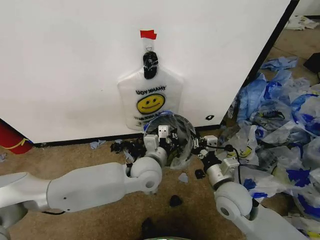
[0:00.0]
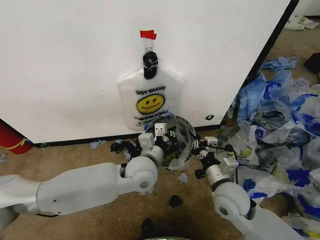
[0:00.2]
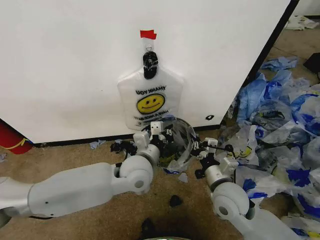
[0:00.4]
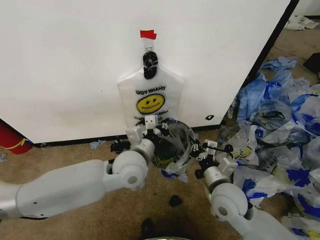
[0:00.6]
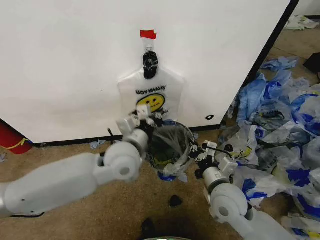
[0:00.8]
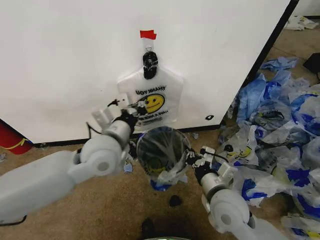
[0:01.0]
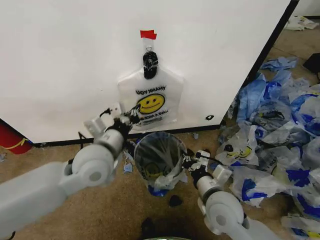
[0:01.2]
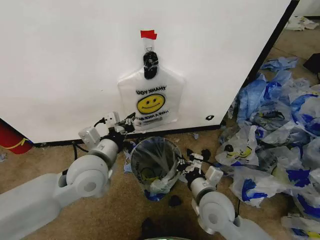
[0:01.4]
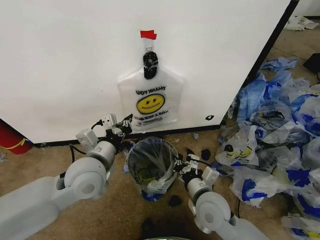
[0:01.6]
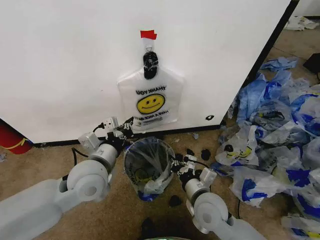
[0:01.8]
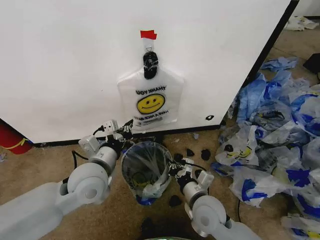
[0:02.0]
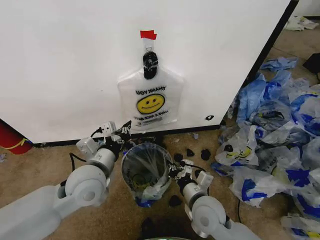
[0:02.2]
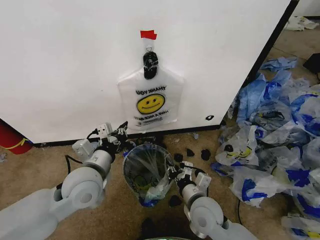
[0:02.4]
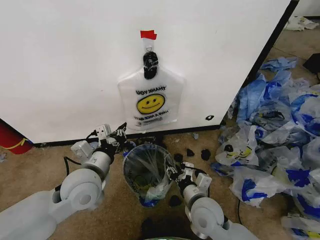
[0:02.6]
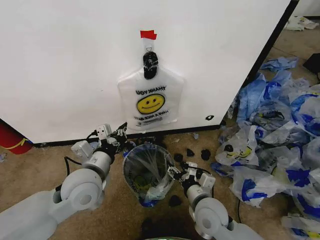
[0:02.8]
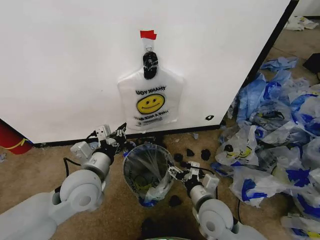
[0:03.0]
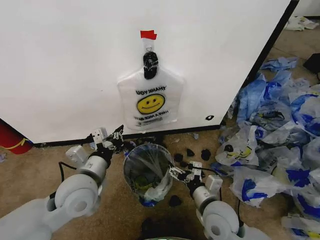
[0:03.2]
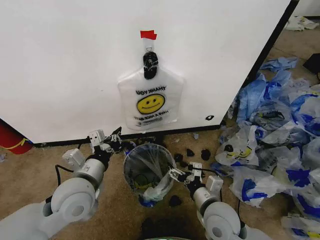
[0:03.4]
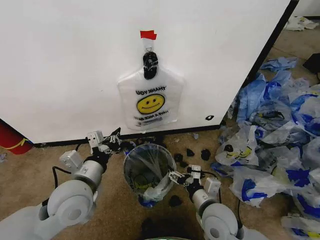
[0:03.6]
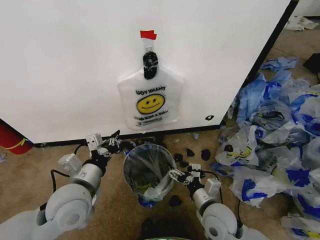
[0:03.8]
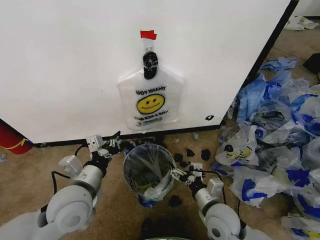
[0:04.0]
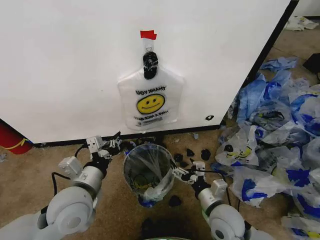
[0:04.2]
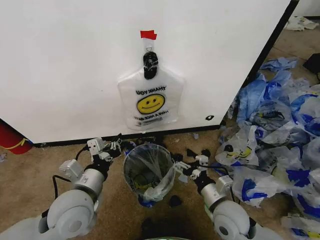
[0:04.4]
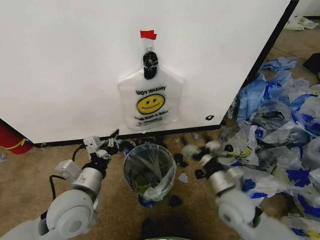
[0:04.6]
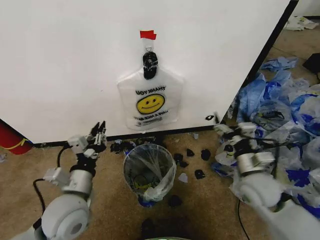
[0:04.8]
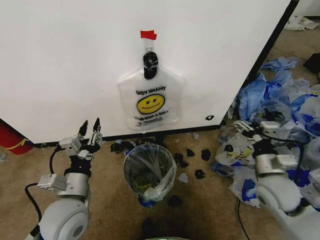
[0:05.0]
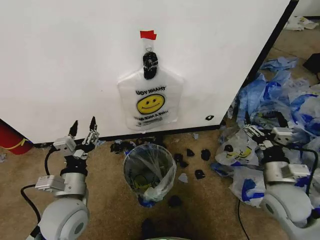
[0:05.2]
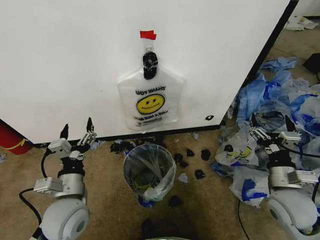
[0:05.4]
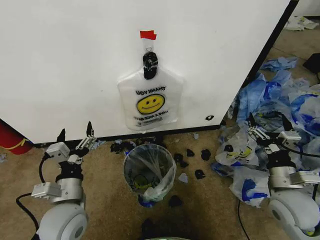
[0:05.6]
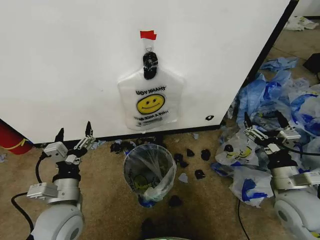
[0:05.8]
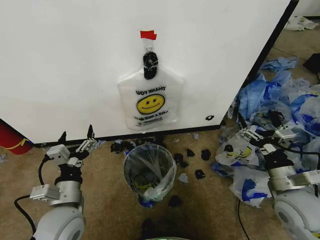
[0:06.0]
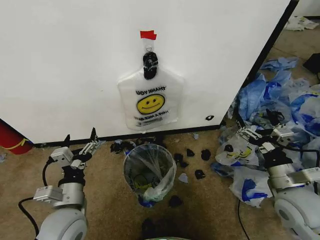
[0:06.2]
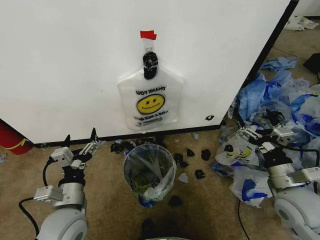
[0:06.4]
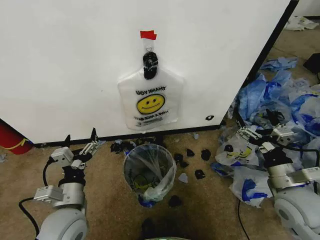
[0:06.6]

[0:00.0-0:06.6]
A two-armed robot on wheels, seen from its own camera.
Task of the whole recording: Pick up the garbage bag from the wall and place it over the trash bin.
0:00.0 to 0:01.6: The right gripper travels to the left by roughly 5 cm. Meanwhile the left gripper shifts roughly 15 cm to the left and upward.
0:01.6 to 0:03.2: The right gripper opens up.
0:03.2 to 0:05.0: The left gripper shifts by some 5 cm, and opens. Meanwhile the right gripper is displaced to the right by some 15 cm.
0:05.0 to 0:06.6: The right gripper ends up about 5 cm from where it was; the left gripper opens its fingers.

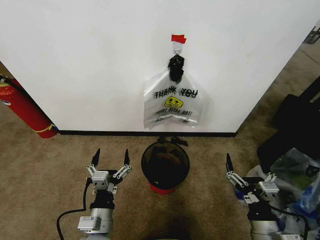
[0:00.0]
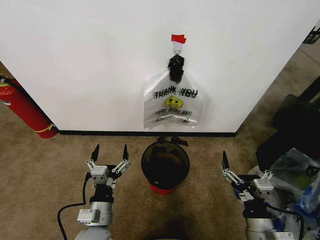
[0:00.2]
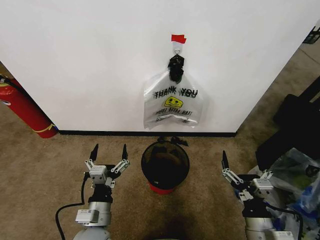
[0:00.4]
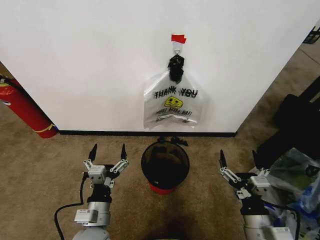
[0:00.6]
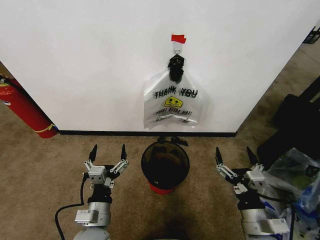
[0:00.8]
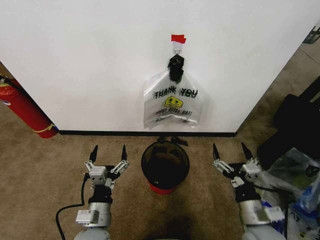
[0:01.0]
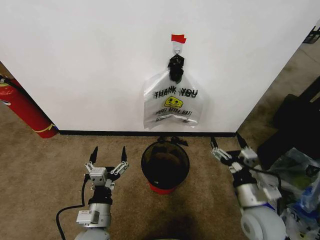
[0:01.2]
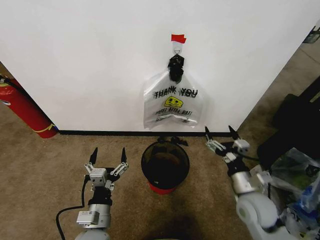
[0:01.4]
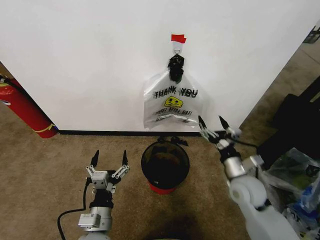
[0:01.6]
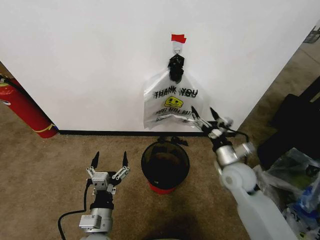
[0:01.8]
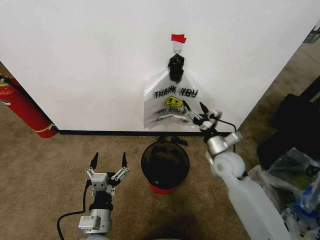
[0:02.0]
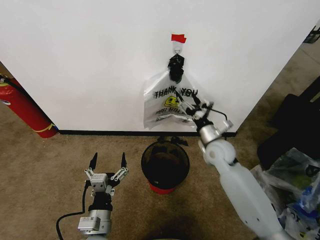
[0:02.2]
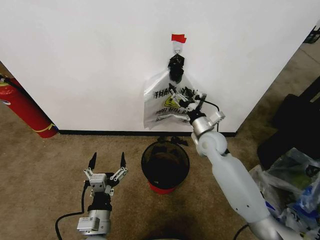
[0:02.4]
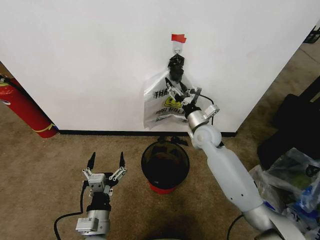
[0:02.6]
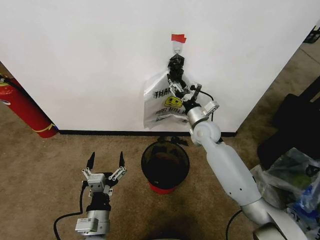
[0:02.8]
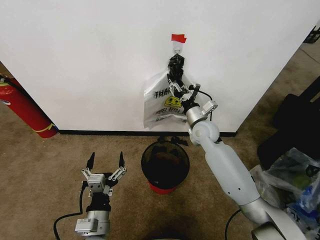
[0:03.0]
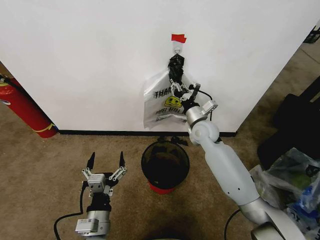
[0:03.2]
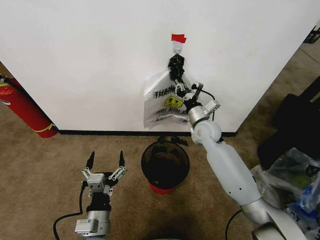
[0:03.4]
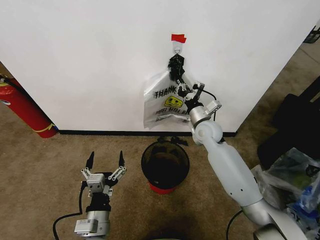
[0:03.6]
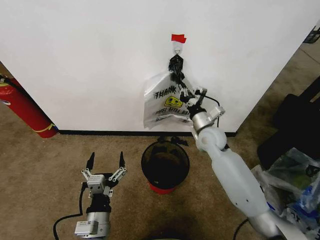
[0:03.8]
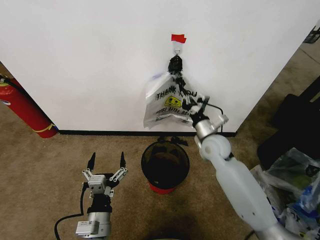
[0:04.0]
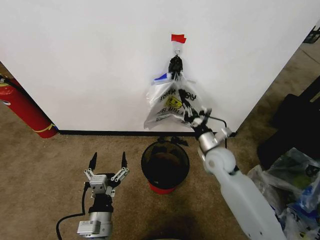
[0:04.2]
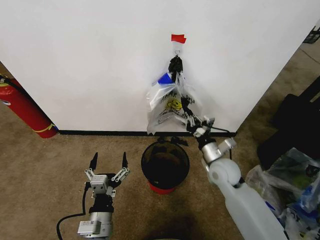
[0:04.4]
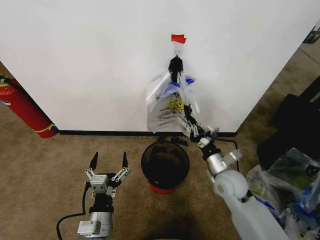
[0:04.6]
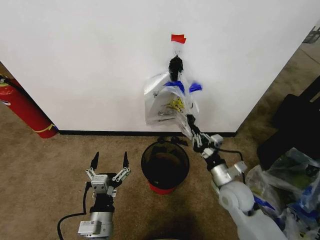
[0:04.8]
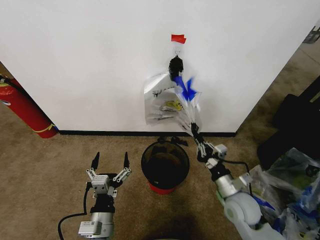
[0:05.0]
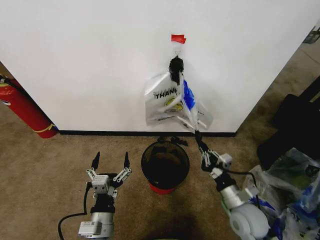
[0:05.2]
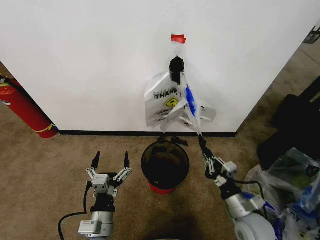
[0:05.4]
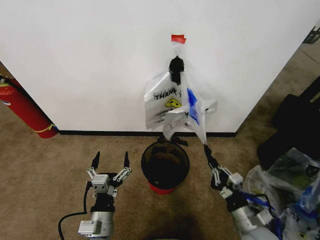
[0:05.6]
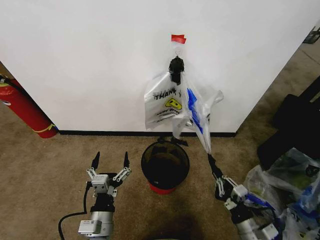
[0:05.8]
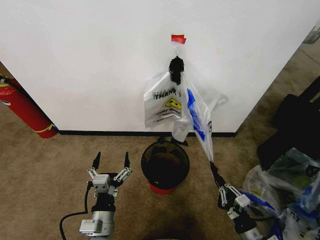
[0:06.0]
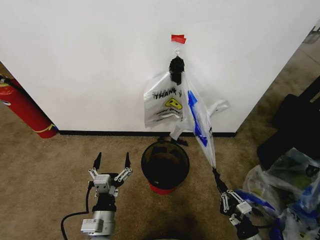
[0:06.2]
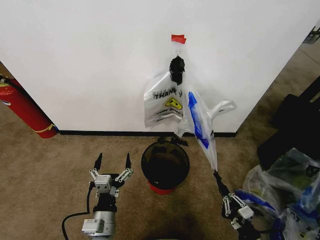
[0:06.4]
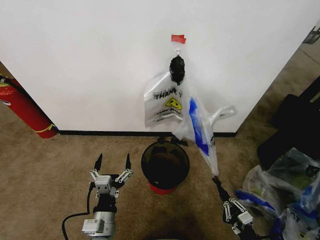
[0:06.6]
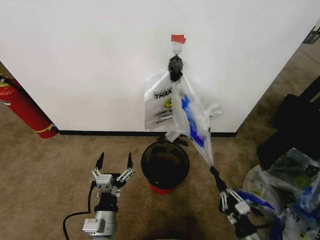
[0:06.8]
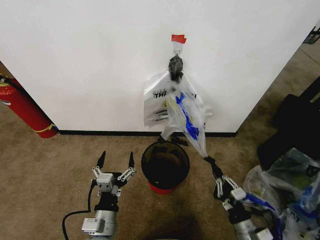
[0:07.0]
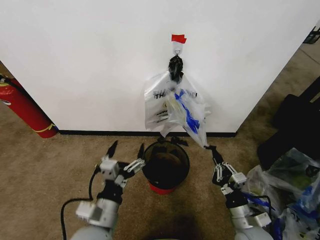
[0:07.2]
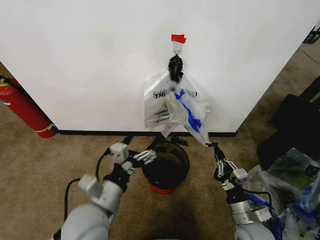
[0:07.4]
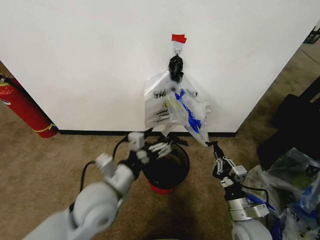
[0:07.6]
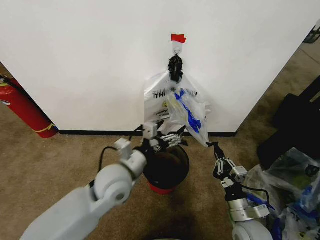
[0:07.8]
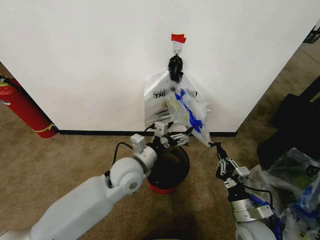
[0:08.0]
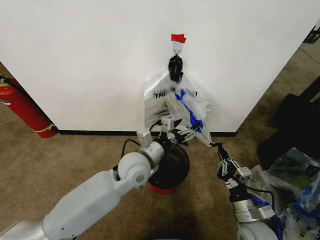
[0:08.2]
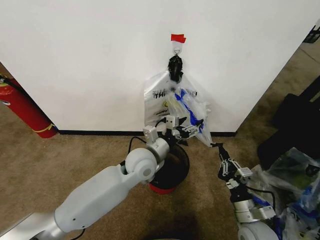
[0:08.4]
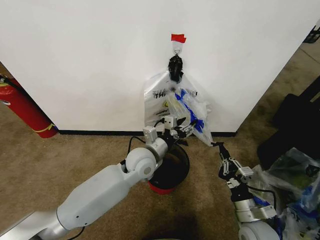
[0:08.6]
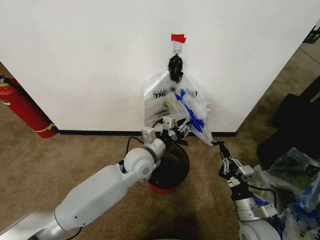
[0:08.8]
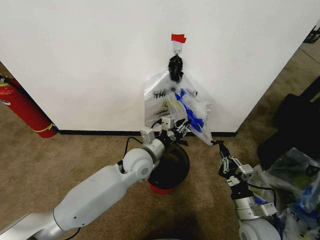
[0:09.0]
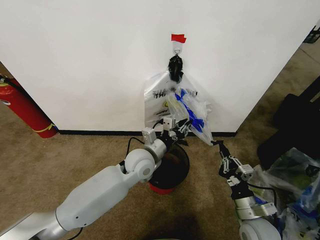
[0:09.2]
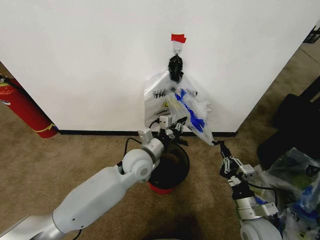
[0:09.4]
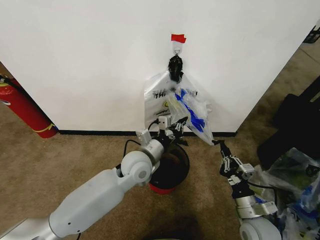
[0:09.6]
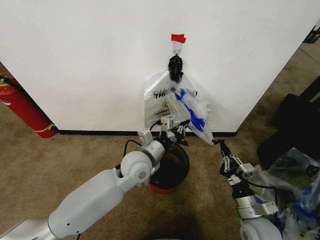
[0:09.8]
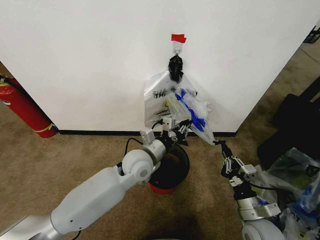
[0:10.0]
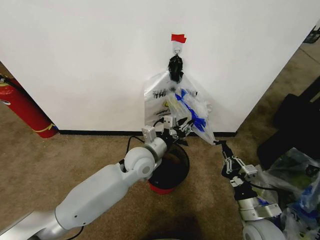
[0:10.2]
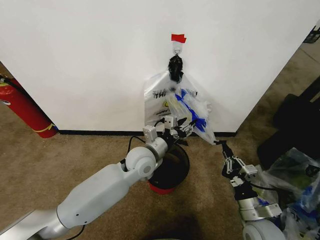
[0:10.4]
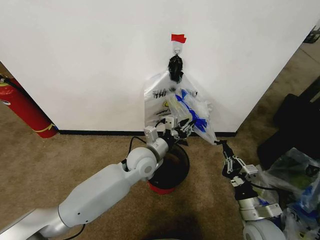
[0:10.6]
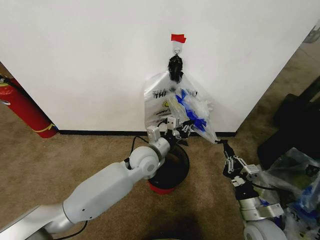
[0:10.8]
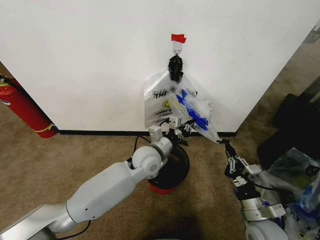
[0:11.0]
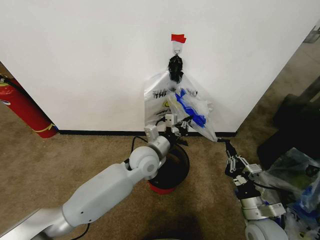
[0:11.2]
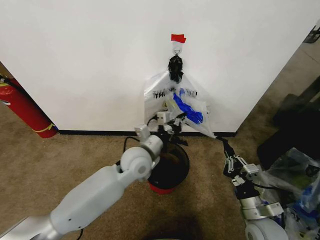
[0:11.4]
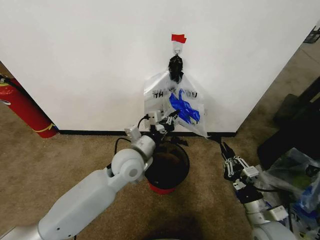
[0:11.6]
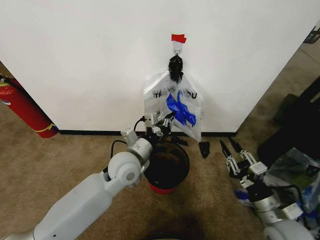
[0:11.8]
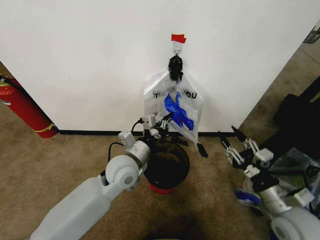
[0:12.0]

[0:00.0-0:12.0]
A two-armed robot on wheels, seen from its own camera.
Task of the whole recording: Pick up the garbage bag from the wall and place it over the trash bin.
0:01.6 to 0:03.0: The right gripper heads forward and to the left, covering roughly 20 cm, and closes up.
0:03.0 to 0:04.4: The right gripper moves backward and downward, some 15 cm, and closes.
0:04.4 to 0:06.0: The right gripper shifts about 25 cm backward, downward and to the right.
0:06.0 to 0:07.6: The right gripper shifts about 5 cm forward. The left gripper heads upward and forward, covering approximately 15 cm.
0:07.6 to 0:09.0: The left gripper goes about 15 cm forward and to the right, and closes.
0:09.0 to 0:10.4: There are only small adjustments of the grippers.
0:10.4 to 0:12.0: The left gripper heads to the left, covering about 5 cm, and closes, while the right gripper travels upward by about 10 cm, and opens its fingers.

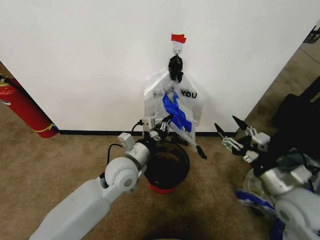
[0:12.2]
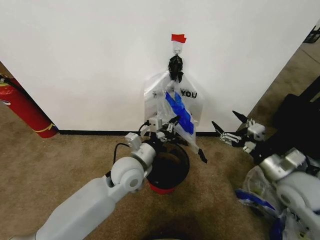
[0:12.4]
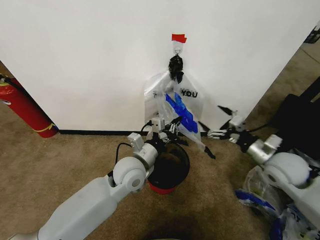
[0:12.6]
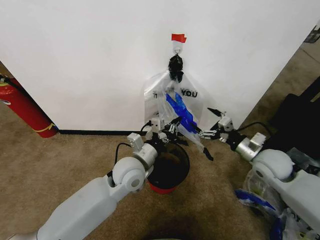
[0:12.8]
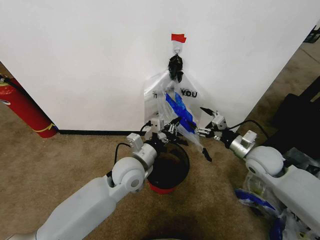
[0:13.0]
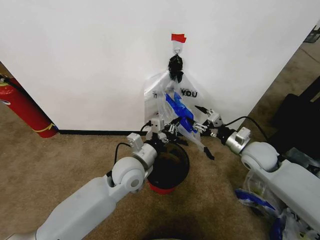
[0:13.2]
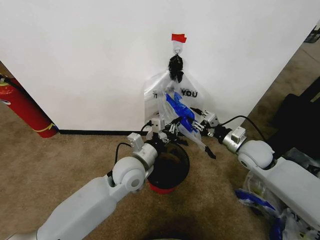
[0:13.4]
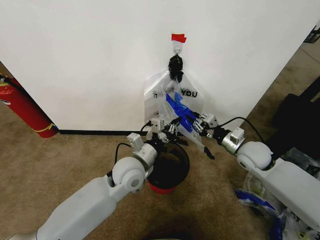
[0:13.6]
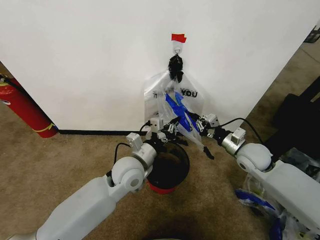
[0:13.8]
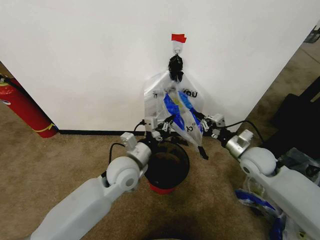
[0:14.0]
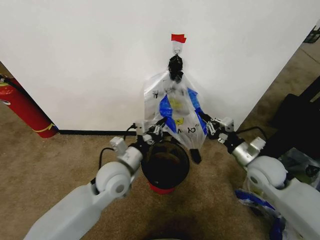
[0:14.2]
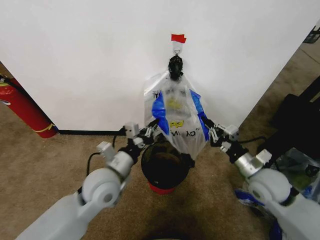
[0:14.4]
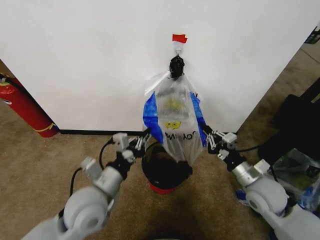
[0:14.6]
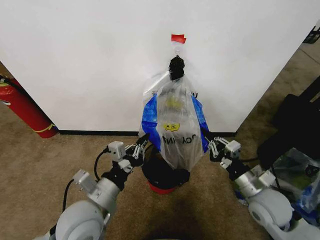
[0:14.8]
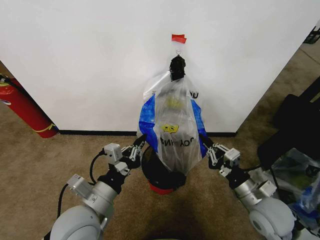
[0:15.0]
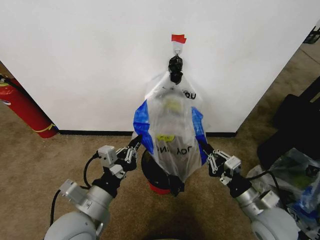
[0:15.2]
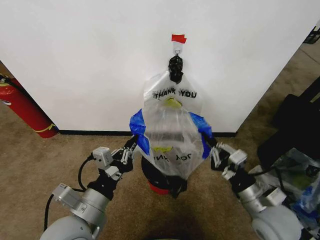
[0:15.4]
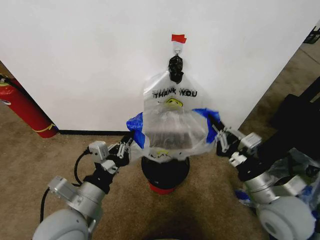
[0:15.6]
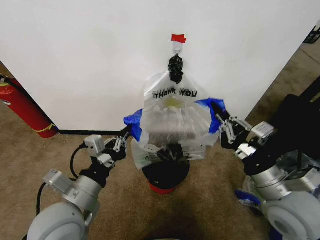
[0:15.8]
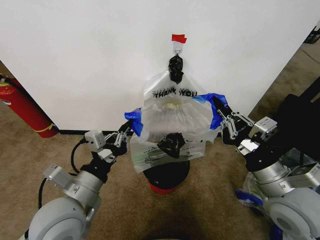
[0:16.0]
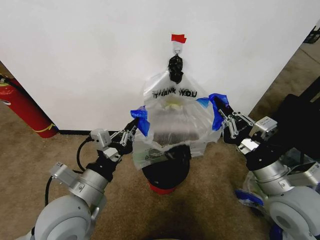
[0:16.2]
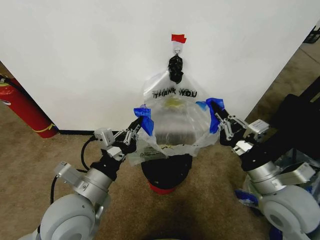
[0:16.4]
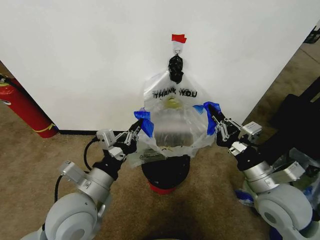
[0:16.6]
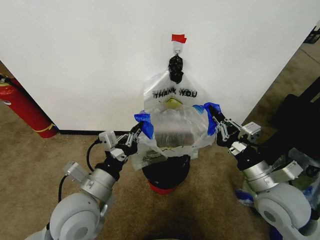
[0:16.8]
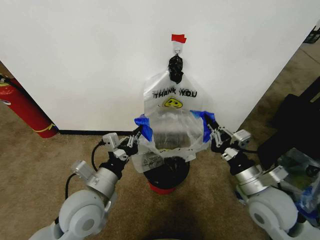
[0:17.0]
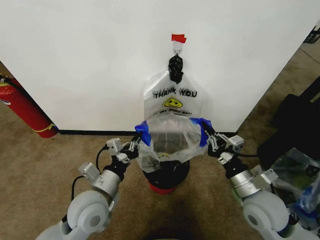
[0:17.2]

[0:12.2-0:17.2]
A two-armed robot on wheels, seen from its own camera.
Task of the whole recording: Pick up the garbage bag from the wall and place it over the trash bin.
0:12.2 to 0:13.8: The right gripper goes about 15 cm forward, and closes its fingers.
0:13.8 to 0:15.6: The left gripper goes about 20 cm backward and to the left; the right gripper heads backward, covering approximately 20 cm.
0:15.6 to 0:17.2: The right gripper moves about 5 cm, while the left gripper goes approximately 10 cm forward and downward.
